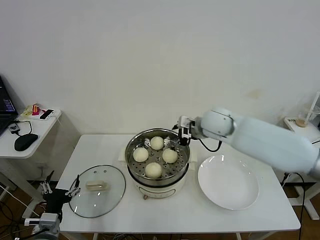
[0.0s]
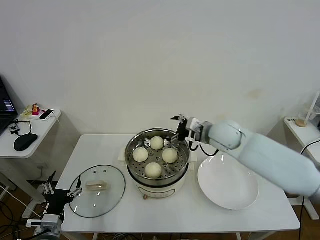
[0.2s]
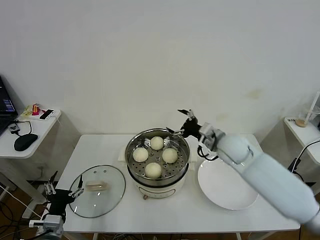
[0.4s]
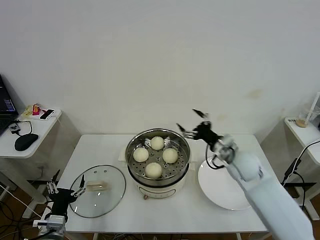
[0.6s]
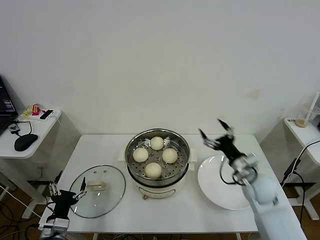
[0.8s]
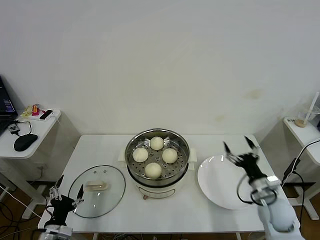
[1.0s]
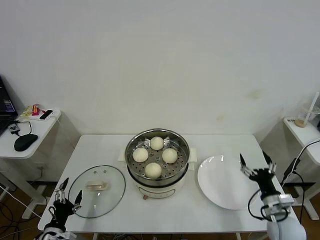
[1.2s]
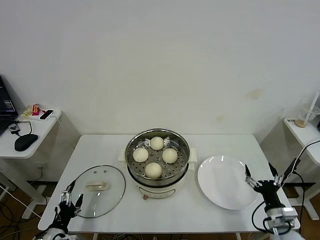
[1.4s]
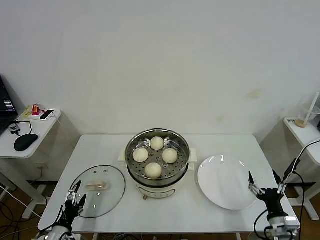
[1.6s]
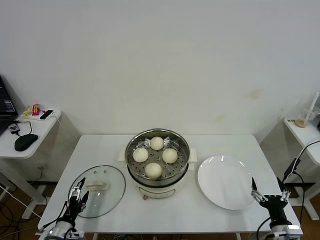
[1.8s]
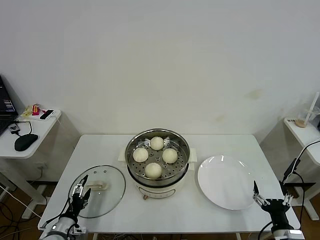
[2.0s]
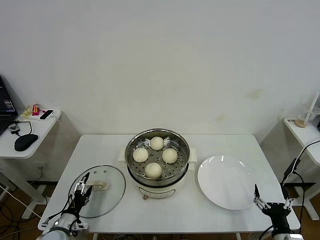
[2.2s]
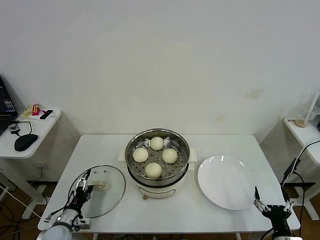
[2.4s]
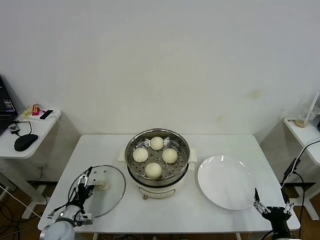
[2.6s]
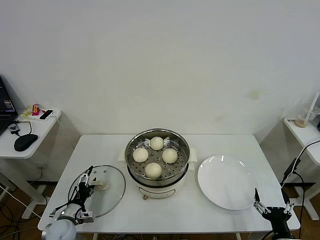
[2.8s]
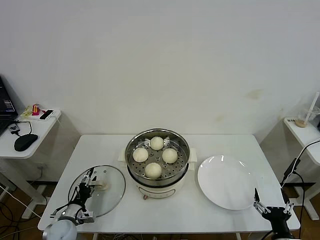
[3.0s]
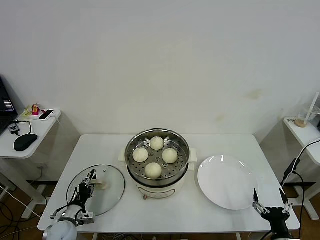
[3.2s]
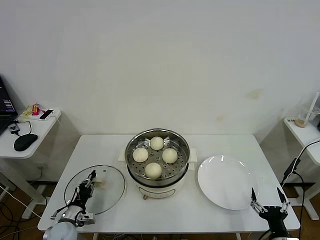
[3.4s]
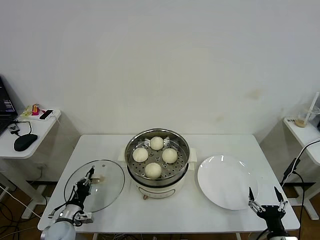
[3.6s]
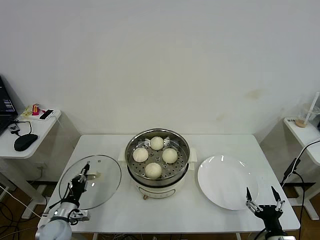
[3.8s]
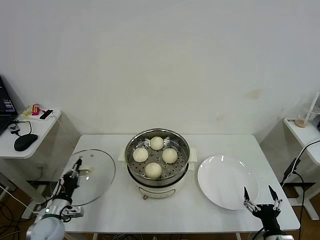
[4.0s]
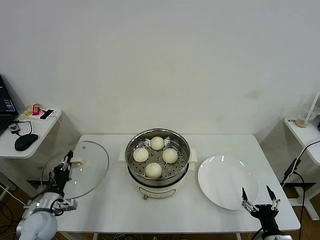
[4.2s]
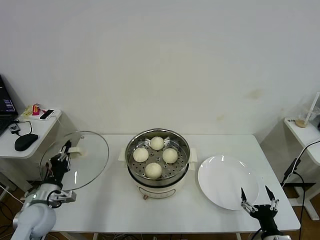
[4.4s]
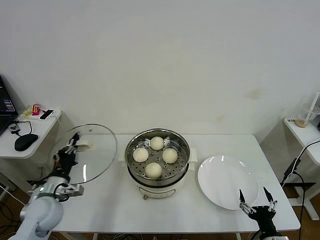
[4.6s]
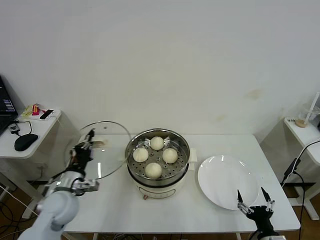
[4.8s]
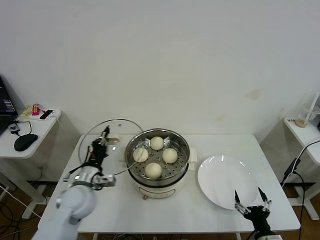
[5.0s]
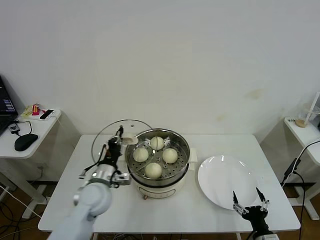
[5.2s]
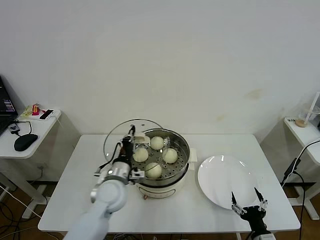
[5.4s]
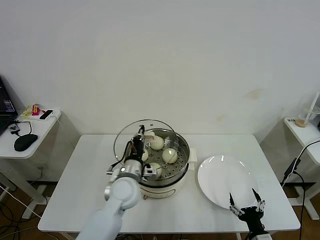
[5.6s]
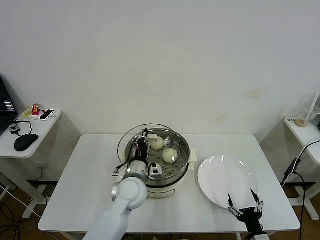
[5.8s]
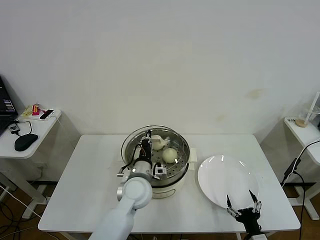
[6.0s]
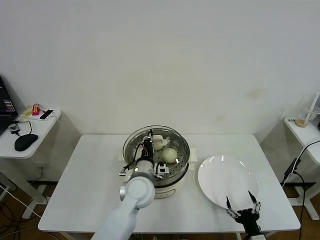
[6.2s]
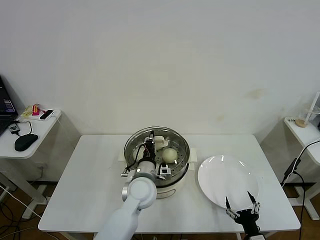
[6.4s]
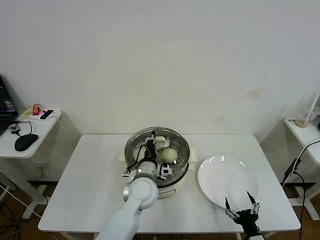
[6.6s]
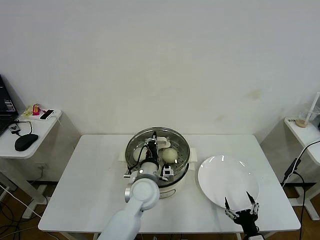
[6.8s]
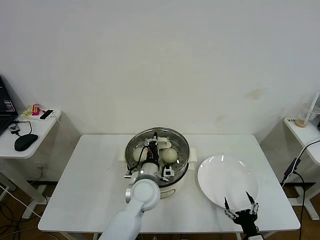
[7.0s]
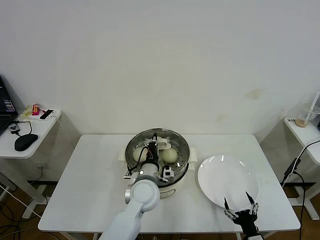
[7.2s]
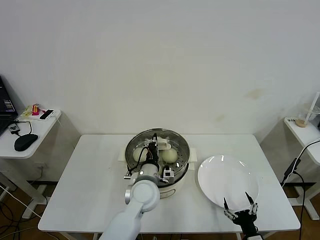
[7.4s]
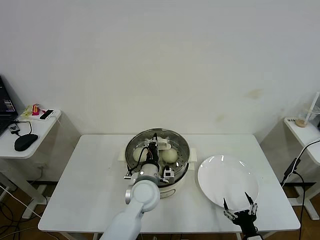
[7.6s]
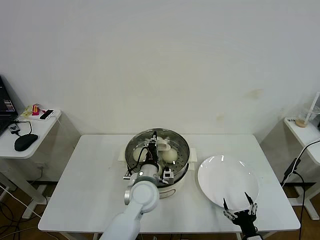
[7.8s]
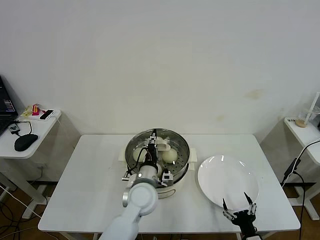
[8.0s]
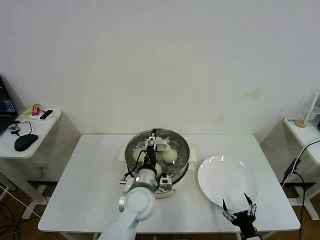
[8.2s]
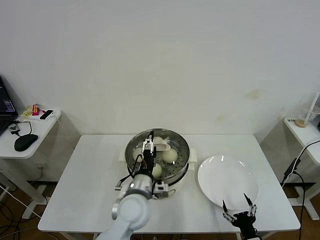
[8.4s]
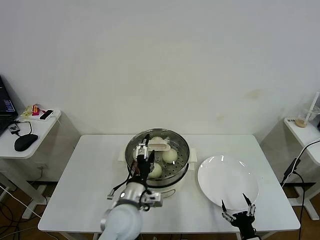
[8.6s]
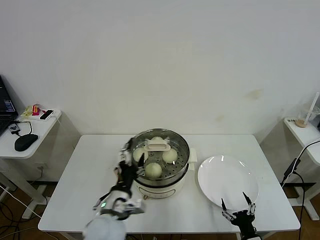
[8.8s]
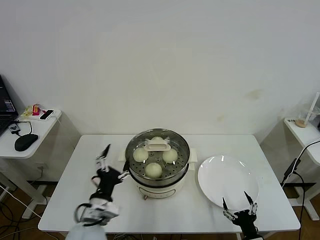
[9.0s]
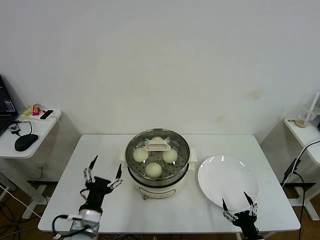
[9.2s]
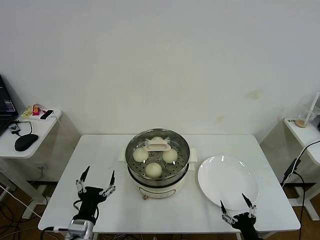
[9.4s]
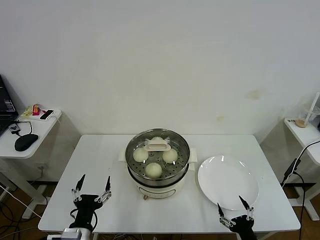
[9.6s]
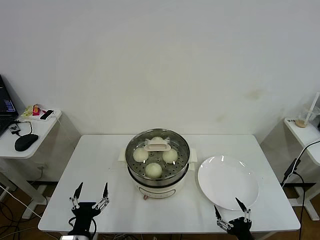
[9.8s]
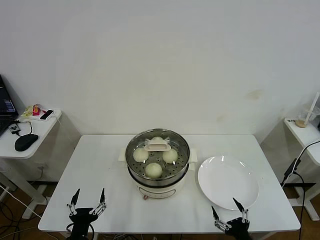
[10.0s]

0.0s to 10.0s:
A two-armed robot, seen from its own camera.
Task of the whole recording: take steamed baozi put them in steamer then cover it.
Step, 0.0s to 3.6s: Grasp the pot lid with left gripper.
Step, 3.8s to 8.4s: Place the pot lid on the steamer with left gripper.
0.0s to 1.4s: The left gripper heads downward, covering some 10 cm; the right gripper is displaced backward, downward and to the right by some 40 cm.
1.4s to 2.8s: The right gripper is displaced backward by some 10 cm. The left gripper moves forward, about 10 cm.
2.8s to 4.2s: The left gripper moves upward, about 10 cm, and closes its fingers.
4.2s to 5.8s: The left gripper moves to the right, some 30 cm.
5.8s to 7.2s: There are only small adjustments of the grippers.
7.2s to 8.6s: The left gripper moves backward, some 10 cm, and opens up.
8.6s to 10.0s: The left gripper shifts some 25 cm to the left, backward and downward.

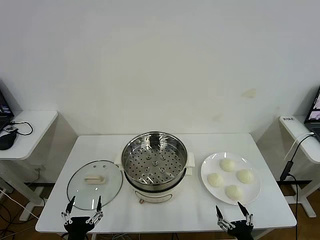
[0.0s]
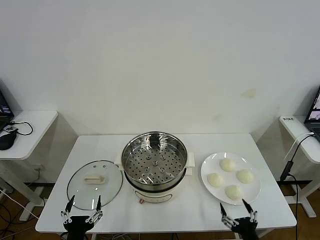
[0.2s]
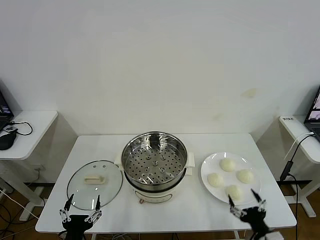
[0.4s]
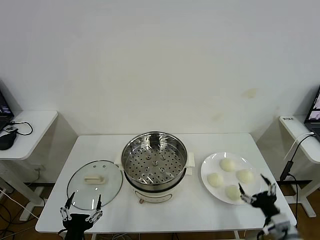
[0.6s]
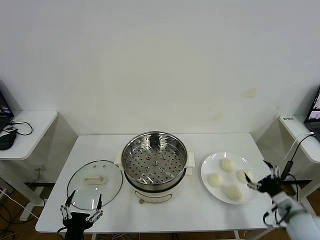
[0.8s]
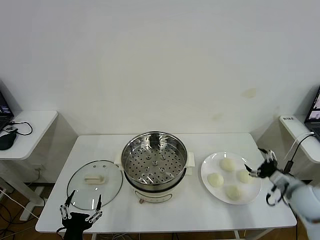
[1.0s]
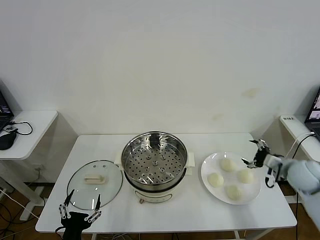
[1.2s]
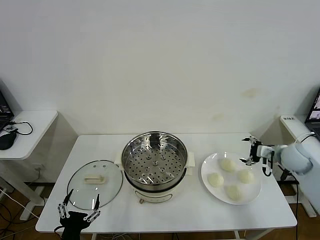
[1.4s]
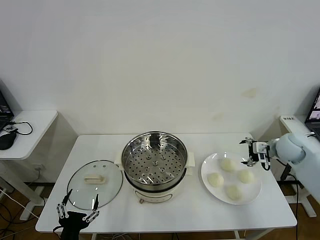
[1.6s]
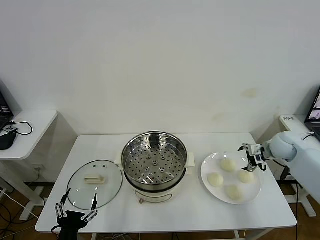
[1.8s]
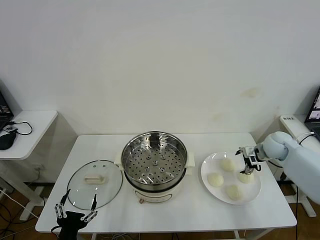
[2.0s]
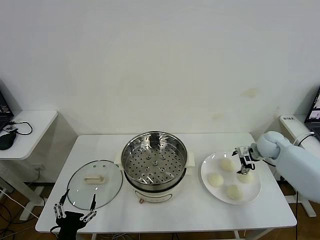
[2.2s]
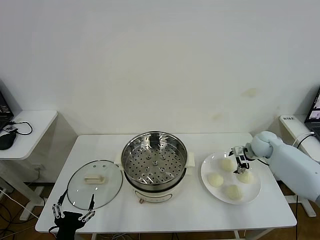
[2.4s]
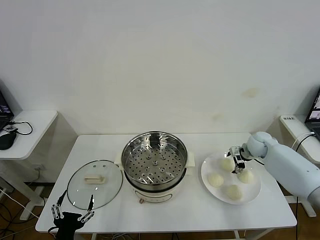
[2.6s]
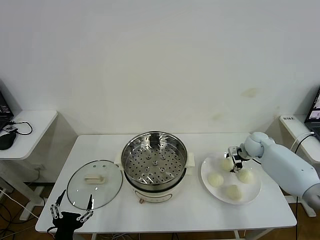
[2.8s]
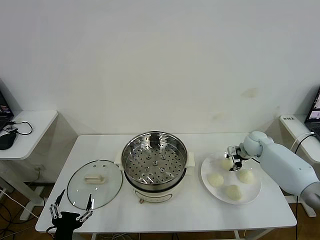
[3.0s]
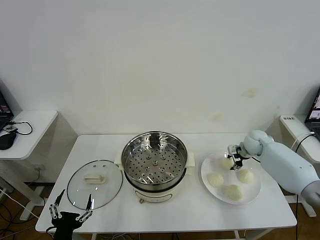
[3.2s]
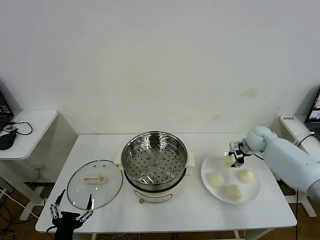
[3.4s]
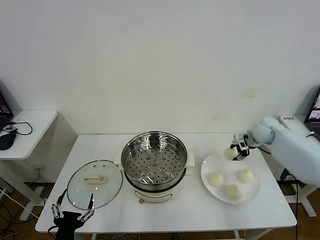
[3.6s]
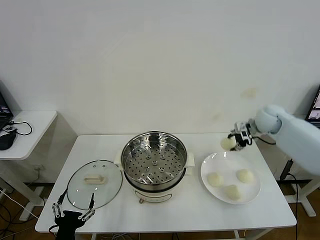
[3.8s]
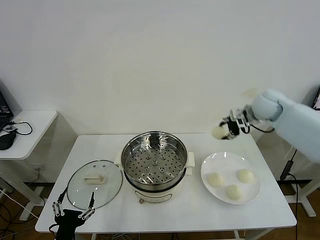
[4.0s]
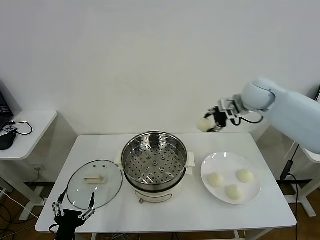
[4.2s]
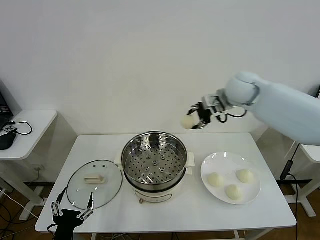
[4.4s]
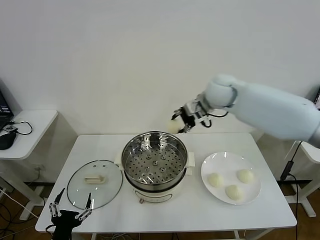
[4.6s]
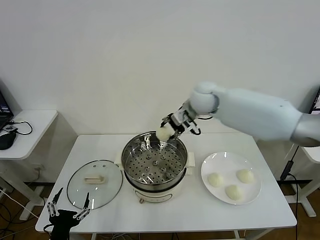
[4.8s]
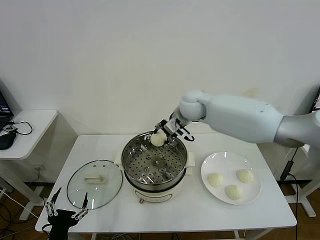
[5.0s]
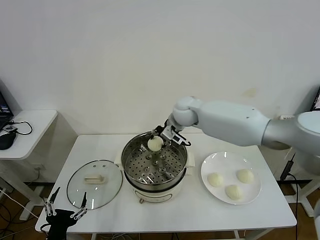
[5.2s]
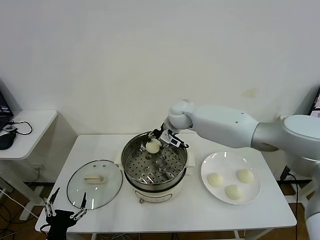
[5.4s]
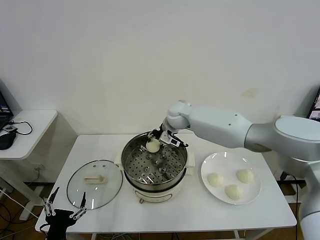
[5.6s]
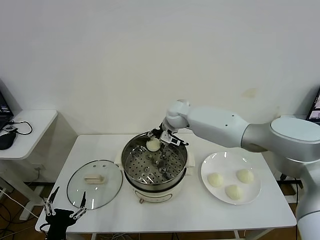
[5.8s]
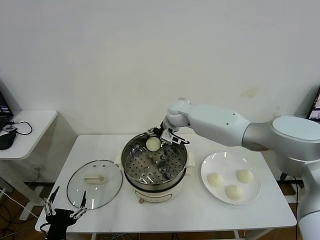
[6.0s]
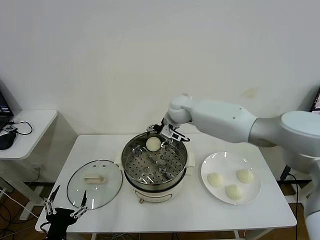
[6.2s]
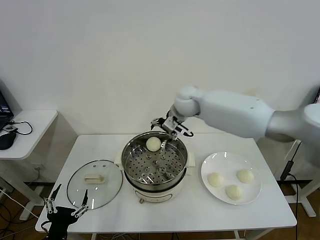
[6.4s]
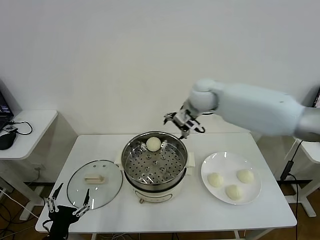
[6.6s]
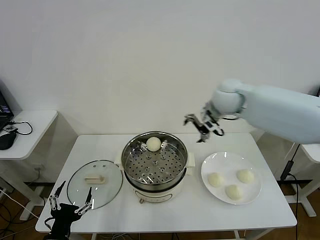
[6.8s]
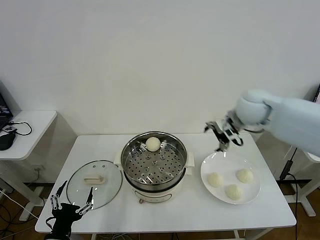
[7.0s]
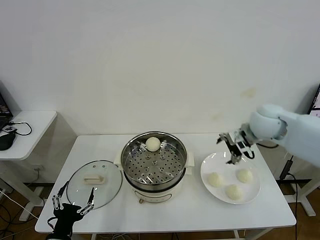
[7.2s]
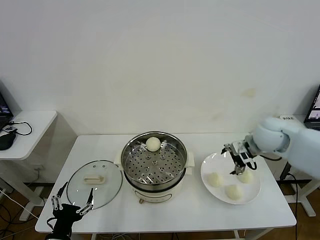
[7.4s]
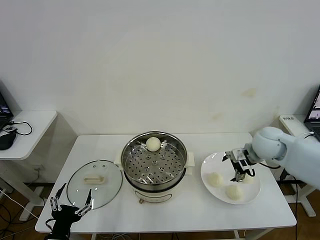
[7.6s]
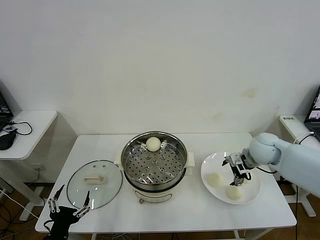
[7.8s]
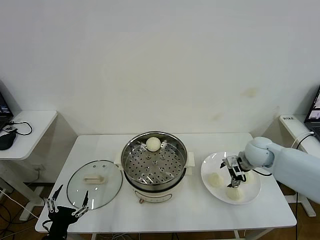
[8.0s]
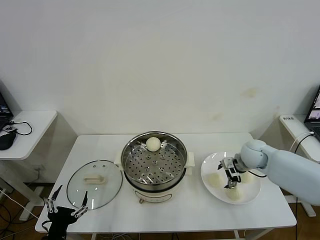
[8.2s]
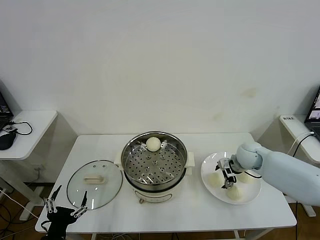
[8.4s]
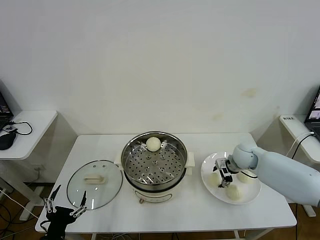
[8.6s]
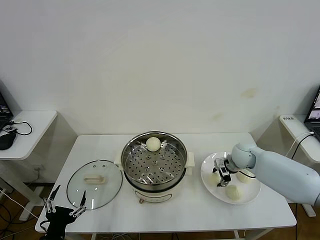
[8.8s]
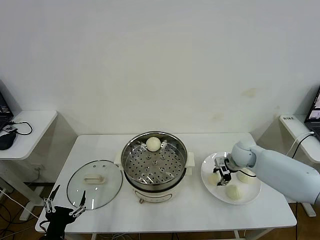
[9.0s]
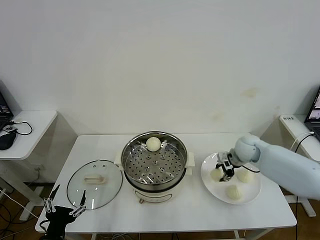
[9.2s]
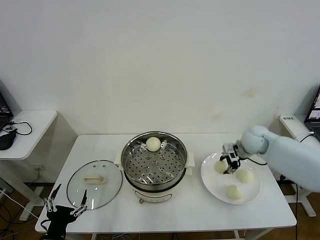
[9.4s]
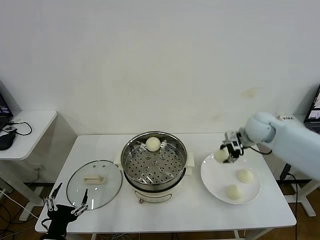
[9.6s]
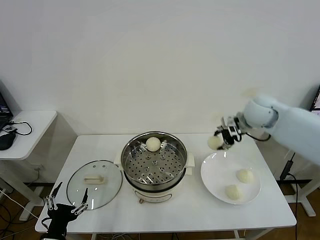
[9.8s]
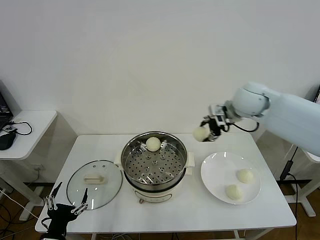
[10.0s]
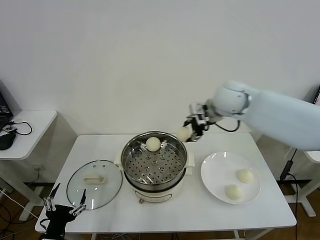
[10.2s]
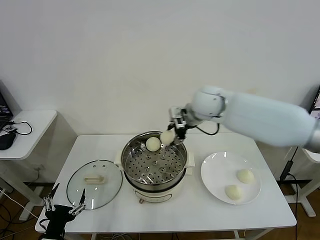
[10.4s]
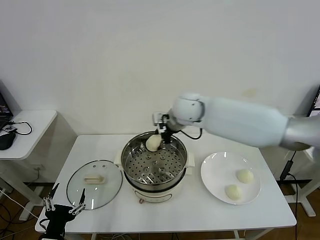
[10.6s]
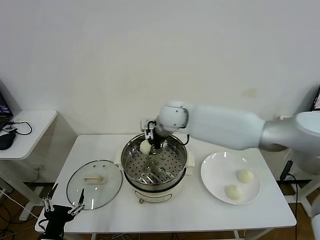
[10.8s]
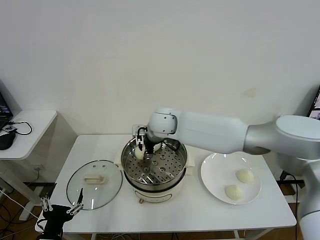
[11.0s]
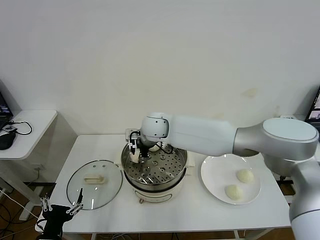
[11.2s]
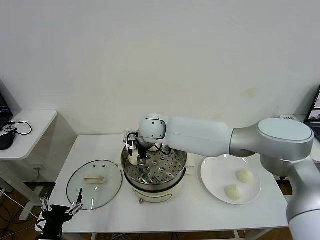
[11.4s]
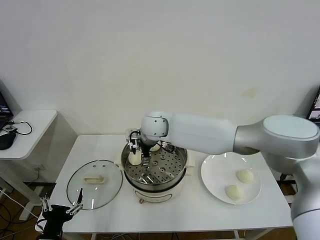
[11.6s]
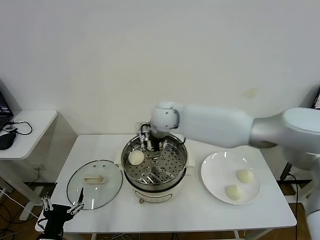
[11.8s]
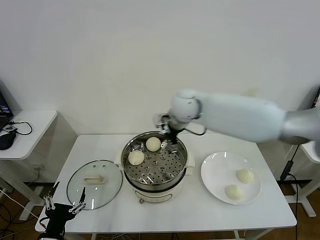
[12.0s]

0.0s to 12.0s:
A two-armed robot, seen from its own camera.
Task of the whole recording: take steamed baozi put them in steamer then cover it.
Step, 0.0s to 2.8s: Grasp the baozi in the plate with right gripper.
Step, 3.2s to 5.8s: Place the baozi on the steamer with right gripper.
Step, 6.2s to 8.8s: Grasp the baozi in the plate with right gripper.
Step, 9.0s to 11.4s: Place the baozi on the steamer with right gripper.
1.6s to 3.0s: The right gripper heads forward, downward and to the left, covering some 10 cm, and closes.
3.0s to 4.4s: The right gripper goes approximately 30 cm upward and to the left.
4.4s to 6.0s: The right gripper is displaced to the left and downward by roughly 15 cm, and opens up.
6.0s to 7.6s: The right gripper shifts approximately 30 cm to the right and backward.
7.6s to 9.0s: The right gripper is displaced downward by some 10 cm, and closes up.
9.0s to 10.4s: The right gripper travels to the left and upward by approximately 30 cm.
10.4s to 12.0s: The right gripper travels to the left and back again, approximately 15 cm each way, and opens up.
